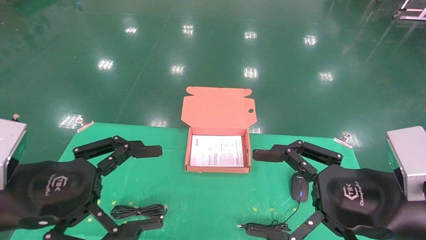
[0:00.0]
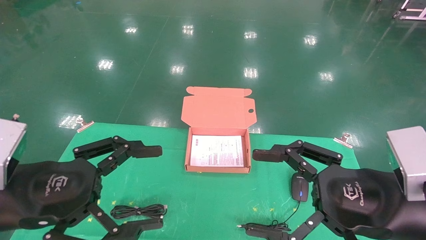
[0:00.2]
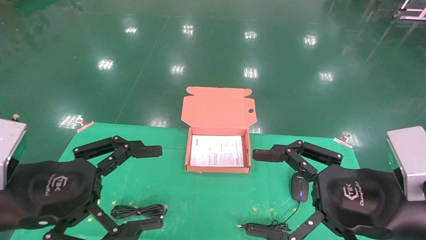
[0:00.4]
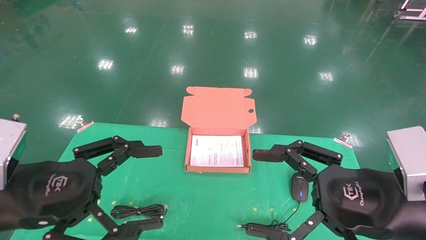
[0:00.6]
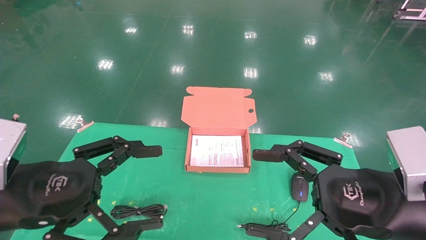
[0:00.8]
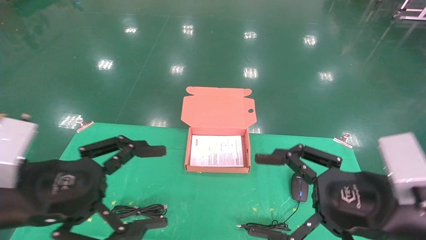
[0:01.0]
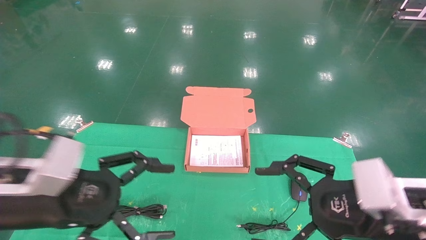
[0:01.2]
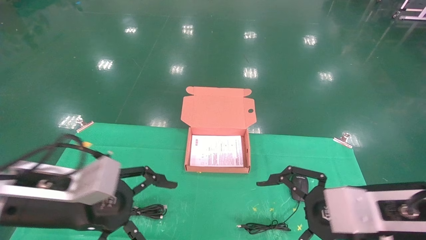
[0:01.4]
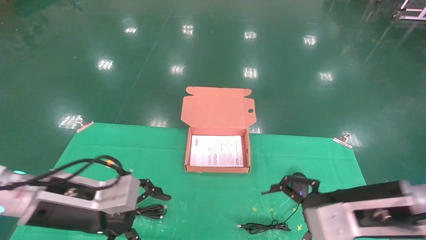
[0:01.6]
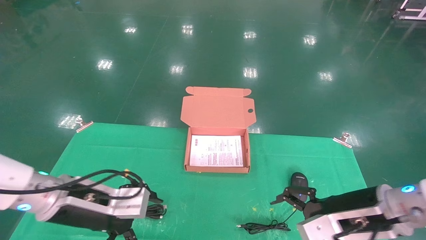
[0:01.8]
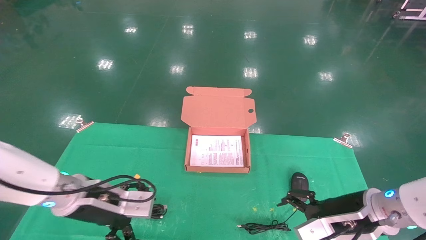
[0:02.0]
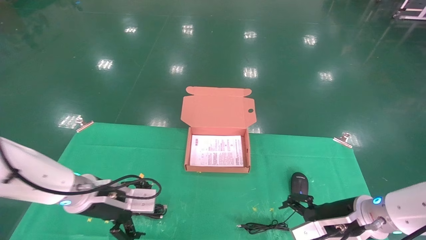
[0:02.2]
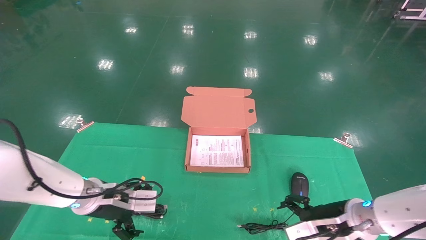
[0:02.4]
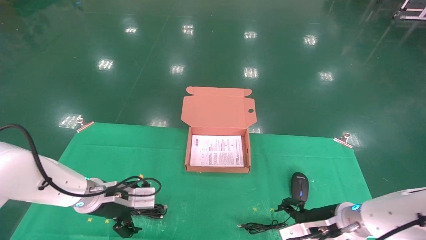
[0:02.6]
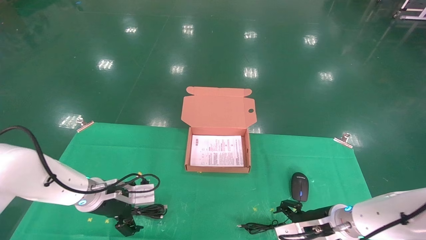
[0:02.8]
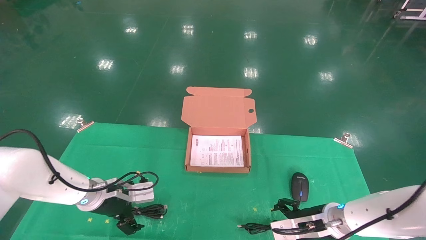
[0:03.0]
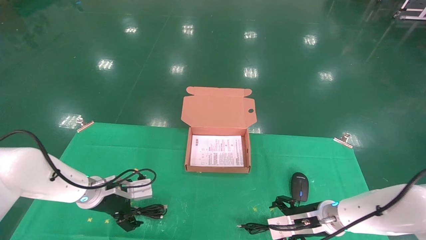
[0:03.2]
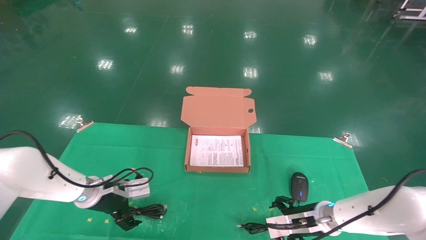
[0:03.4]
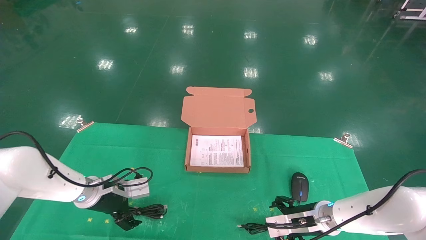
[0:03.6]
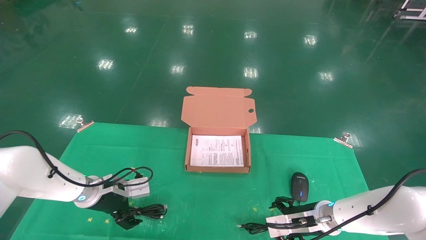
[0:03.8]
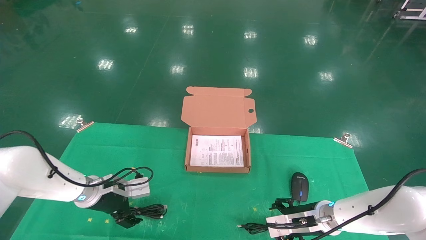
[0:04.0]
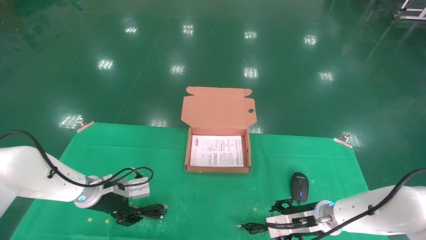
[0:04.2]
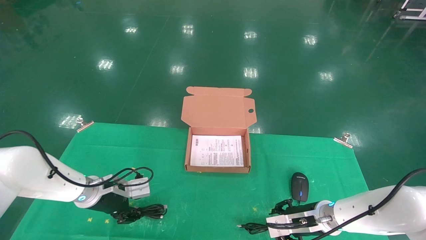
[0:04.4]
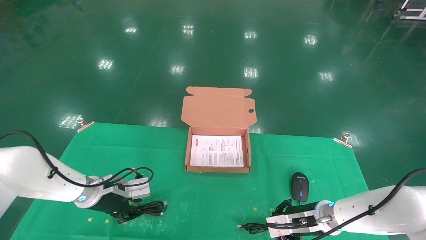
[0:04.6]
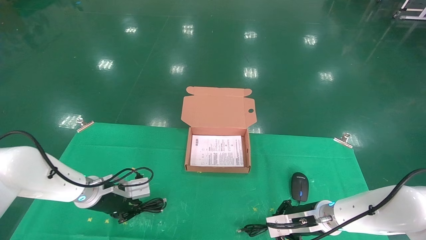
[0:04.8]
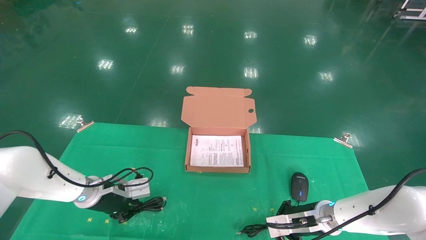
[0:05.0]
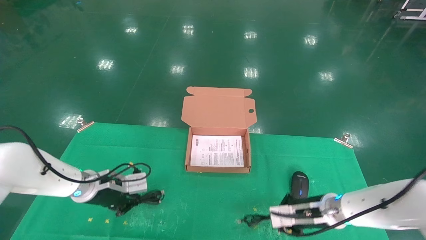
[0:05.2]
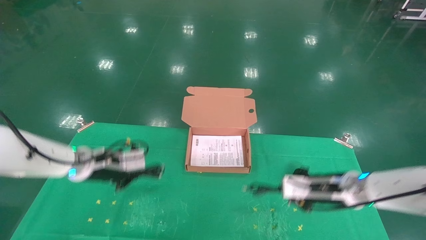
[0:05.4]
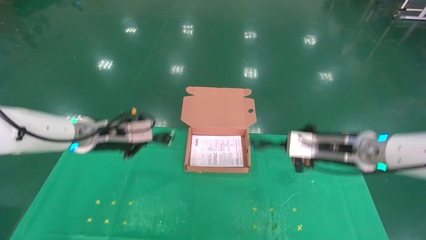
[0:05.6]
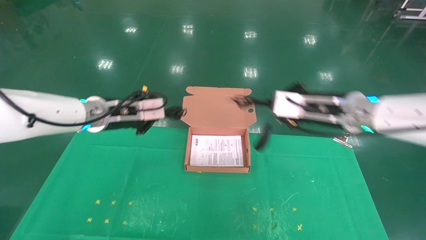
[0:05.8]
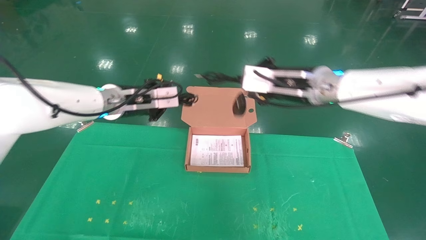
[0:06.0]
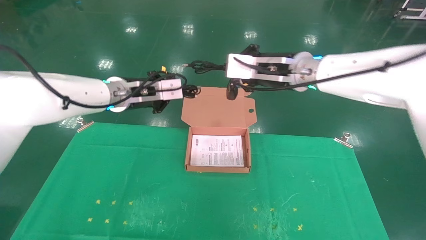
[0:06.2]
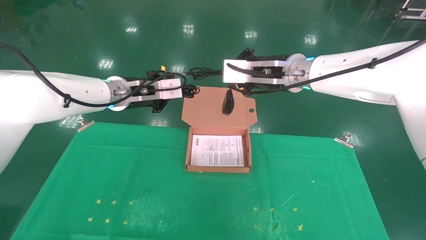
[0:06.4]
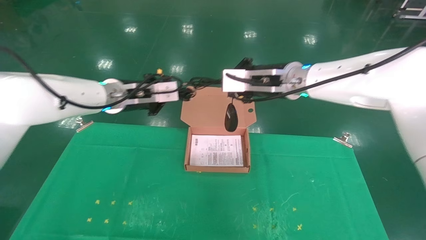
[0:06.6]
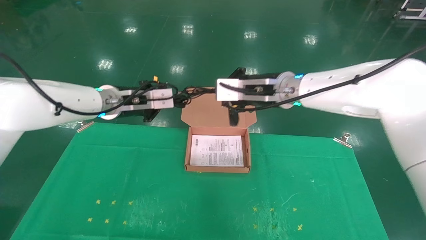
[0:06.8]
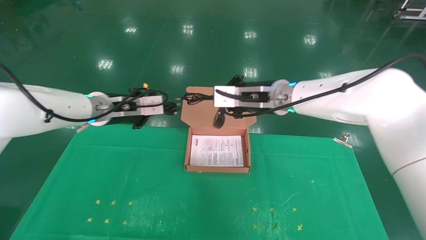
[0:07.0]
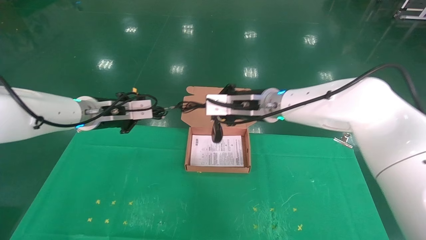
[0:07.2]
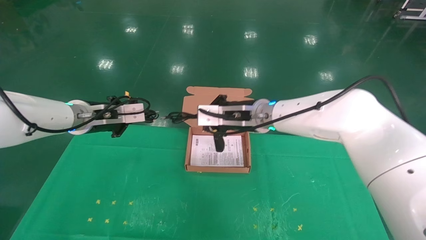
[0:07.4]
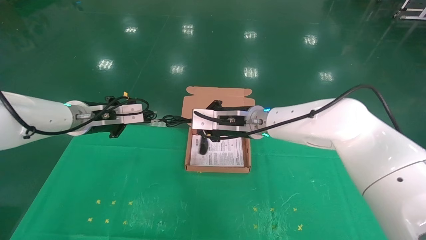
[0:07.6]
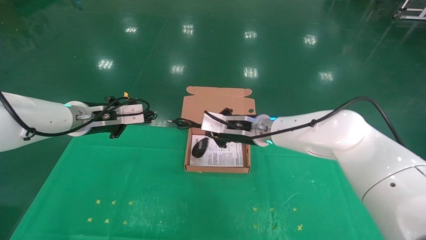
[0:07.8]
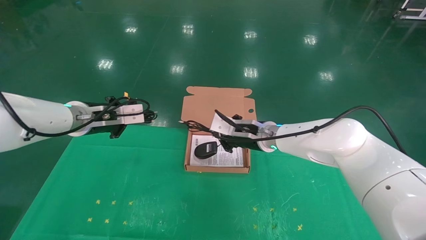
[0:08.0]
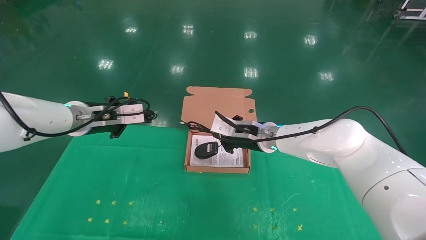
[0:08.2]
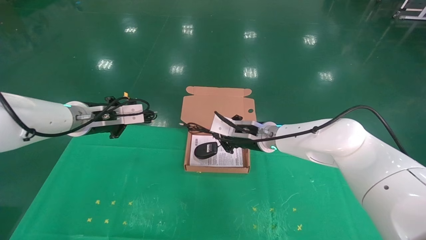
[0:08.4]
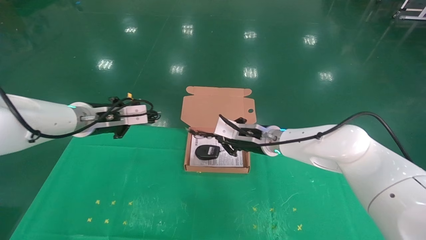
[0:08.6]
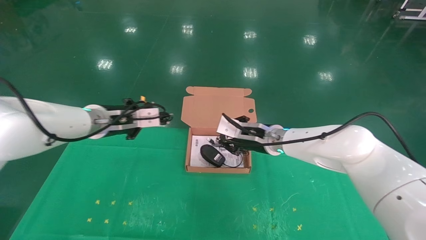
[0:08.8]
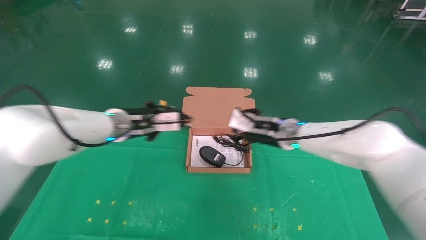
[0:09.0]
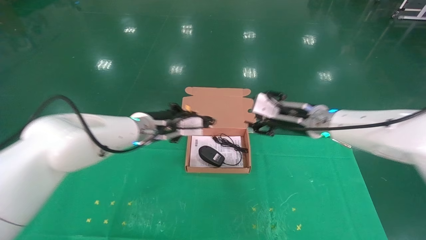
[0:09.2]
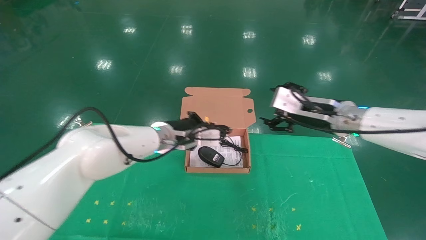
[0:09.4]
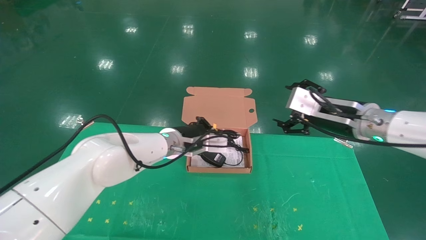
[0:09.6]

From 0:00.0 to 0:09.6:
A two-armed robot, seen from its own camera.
Task of the whole recording: grasp data cable left put into box grasp mouse right put into box.
Step, from 0:01.2 to 0:04.8: Grab and pick up both the mouse and power cord from the accessory packaging area at the same time.
From 0:00.0 to 0:01.6: The right gripper is displaced forward by roughly 5 cm, while the left gripper moves forward and downward, roughly 10 cm.
From 0:01.6 to 0:03.2: The left gripper shifts roughly 20 cm forward and downward; the right gripper goes some 20 cm downward and forward.
From 0:03.2 to 0:04.8: The left gripper closes up. Meanwhile the right gripper closes its fingers.
From 0:04.8 to 0:06.4: Both grippers move upward, approximately 25 cm.
From 0:06.4 to 0:08.0: The left gripper heads to the left, covering about 5 cm. The right gripper travels downward by some 15 cm.
From 0:08.0 to 0:09.6: The right gripper travels to the right, backward and upward by some 20 cm, and opens, while the left gripper goes approximately 20 cm to the right and downward.

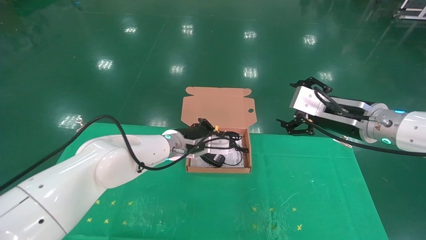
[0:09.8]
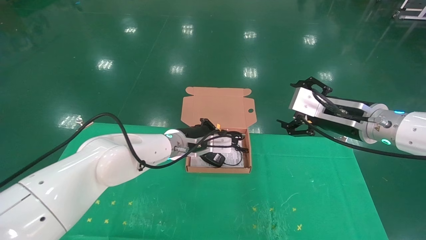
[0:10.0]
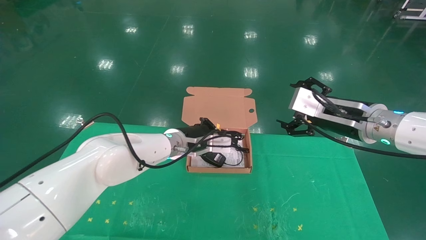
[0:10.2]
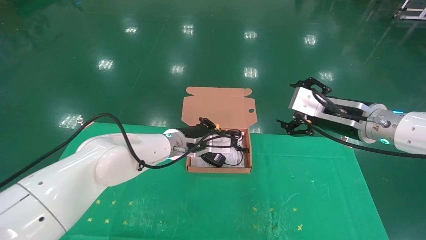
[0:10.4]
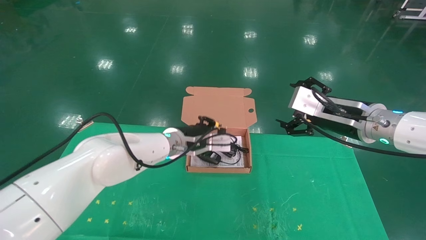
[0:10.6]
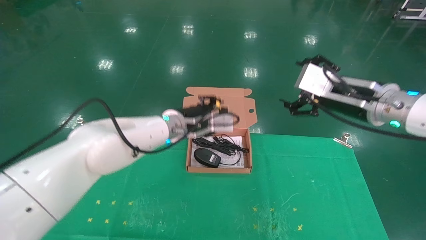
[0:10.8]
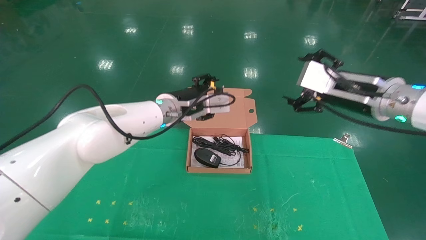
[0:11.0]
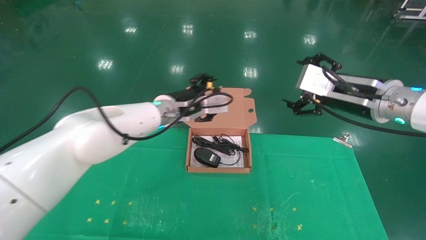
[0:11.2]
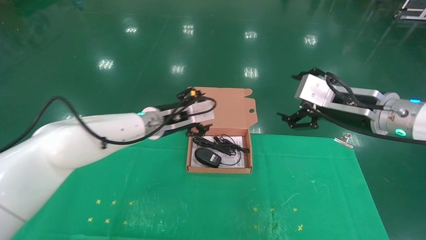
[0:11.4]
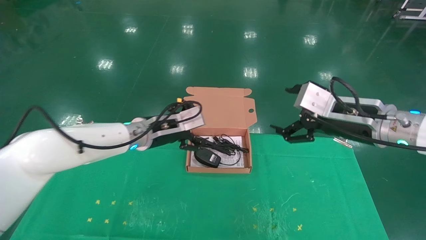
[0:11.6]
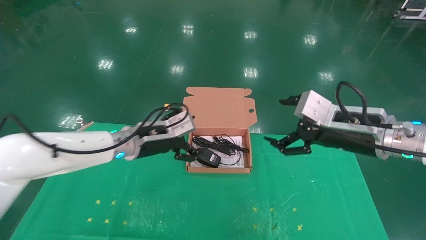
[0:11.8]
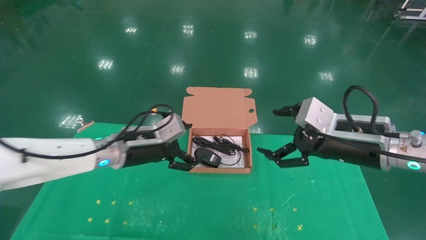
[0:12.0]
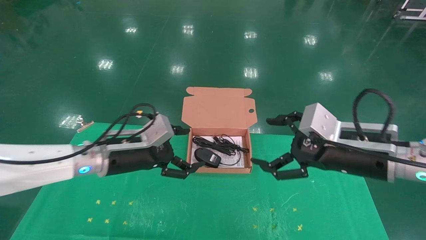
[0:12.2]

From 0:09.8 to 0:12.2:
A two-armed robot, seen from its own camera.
Task of the whole recording: grasp data cable left put into box grasp mouse right put into box.
From 0:09.8 to 0:11.0: The left gripper travels upward by roughly 5 cm, and opens up.
From 0:11.0 to 0:12.2: The right gripper travels downward and backward by some 10 cm; the left gripper travels to the left, backward and downward by some 15 cm, and opens up.

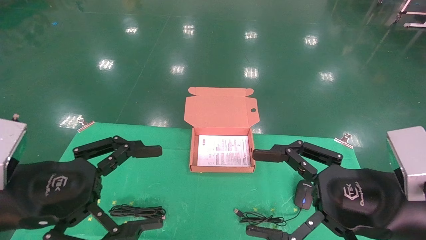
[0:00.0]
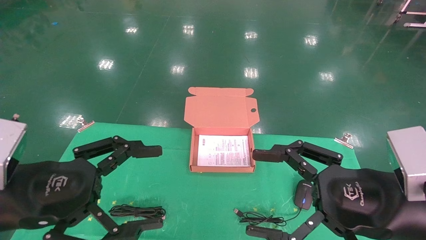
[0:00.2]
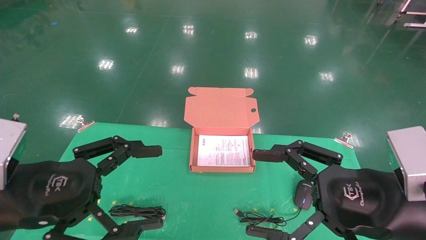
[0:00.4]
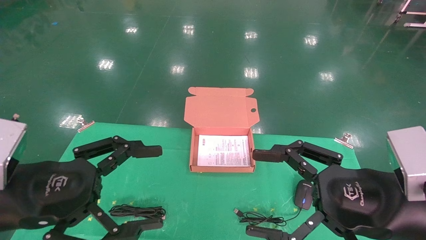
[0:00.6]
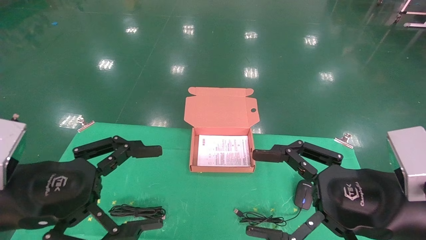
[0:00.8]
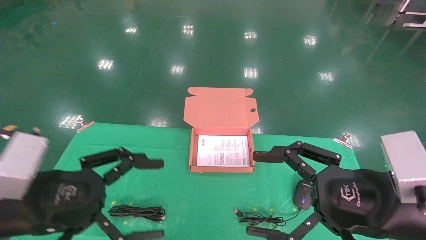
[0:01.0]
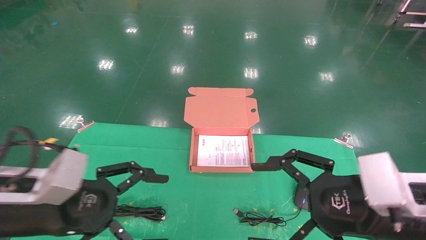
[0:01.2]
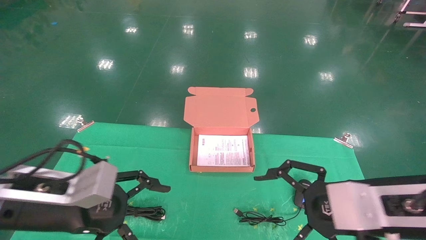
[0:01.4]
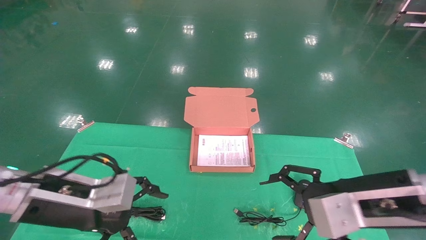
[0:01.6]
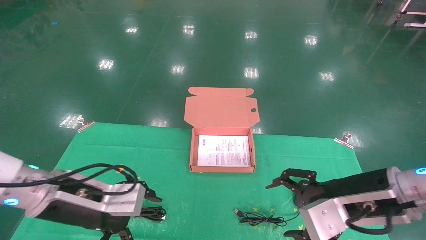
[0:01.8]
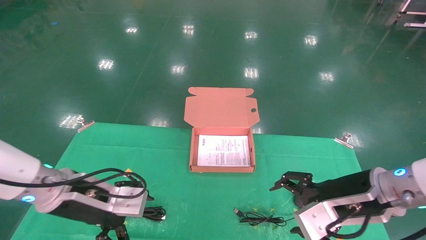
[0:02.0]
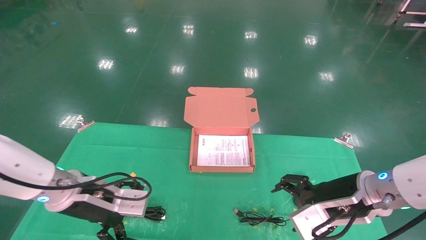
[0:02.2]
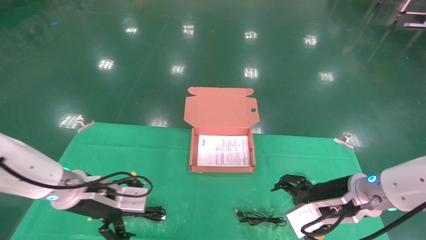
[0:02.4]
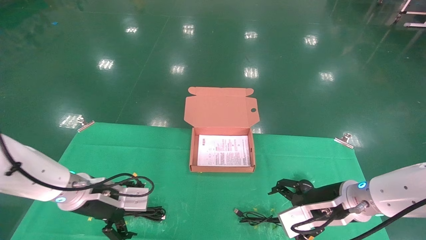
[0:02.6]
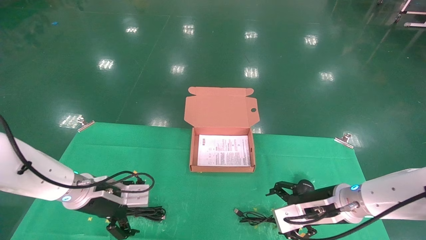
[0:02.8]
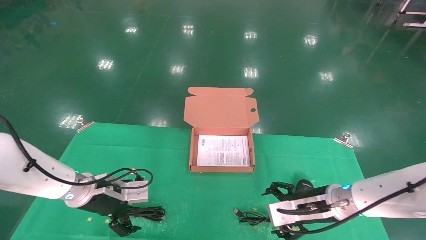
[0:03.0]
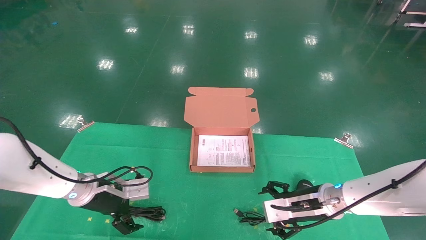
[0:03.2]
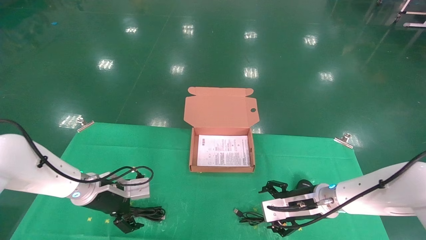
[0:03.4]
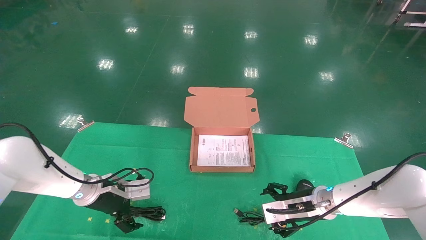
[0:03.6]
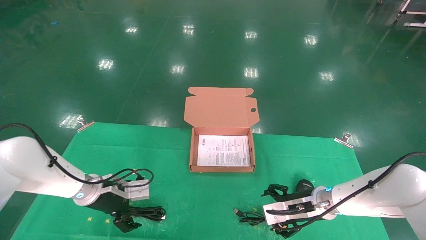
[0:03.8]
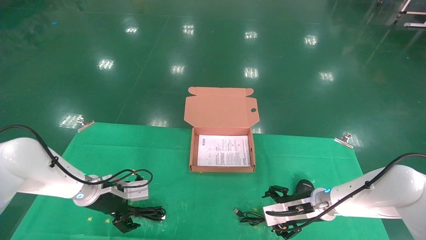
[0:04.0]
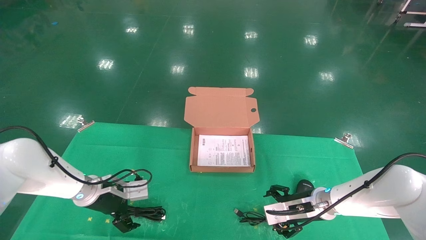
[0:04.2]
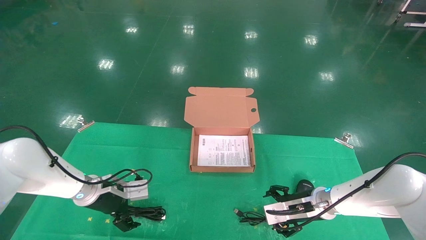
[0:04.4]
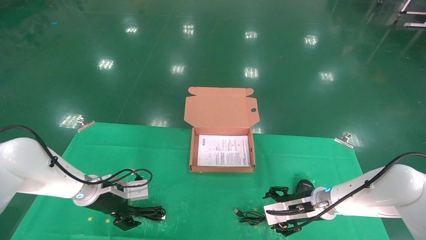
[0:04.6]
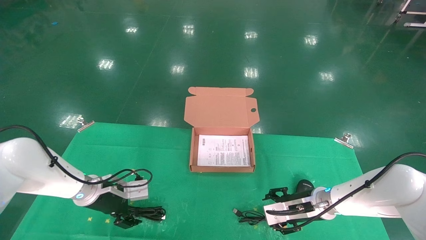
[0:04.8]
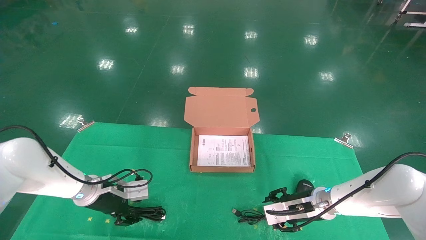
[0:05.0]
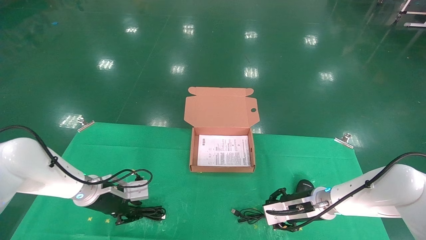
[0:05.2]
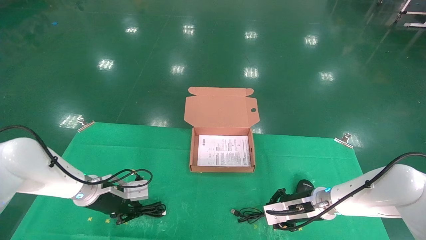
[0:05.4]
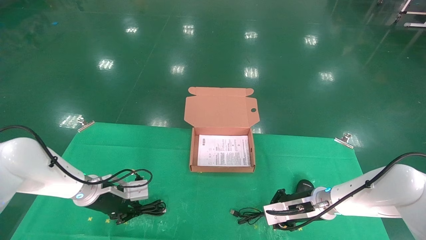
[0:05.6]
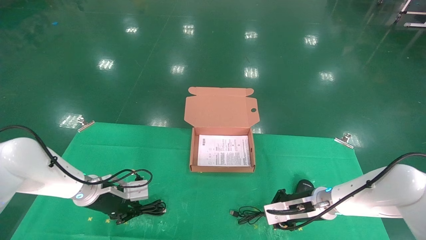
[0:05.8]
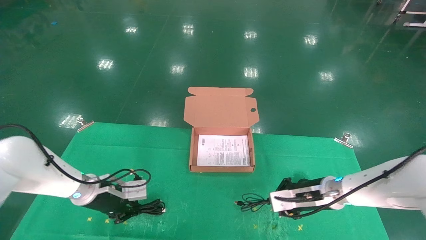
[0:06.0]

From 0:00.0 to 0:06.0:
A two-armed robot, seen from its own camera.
Task of the whole recording: grasp data cable left put into box grasp mouse right put into box.
Step, from 0:01.2 to 0:05.8: Grab and pick up both the mouse and power cord from the accessory packaging area at the same time.
From 0:00.0 to 0:01.6: The two grippers go some 5 cm forward.
From 0:01.6 to 0:03.0: Both grippers move forward and downward, approximately 15 cm.
From 0:03.0 to 0:04.4: The left gripper moves approximately 5 cm. The right gripper goes about 10 cm forward and downward.
From 0:04.4 to 0:06.0: The right gripper closes up. Meanwhile the left gripper closes up.
